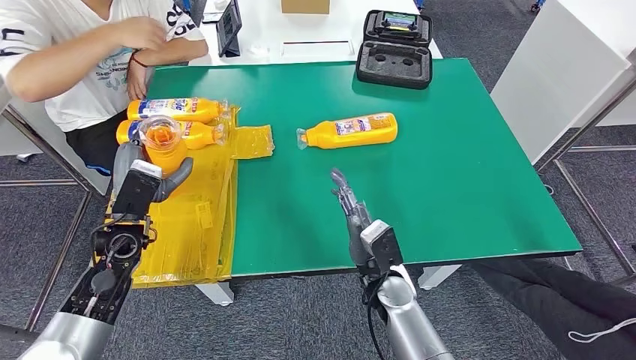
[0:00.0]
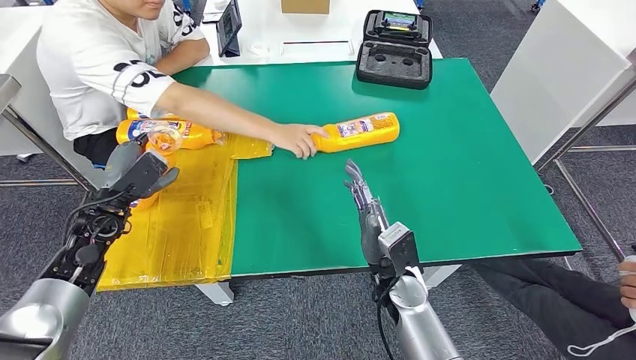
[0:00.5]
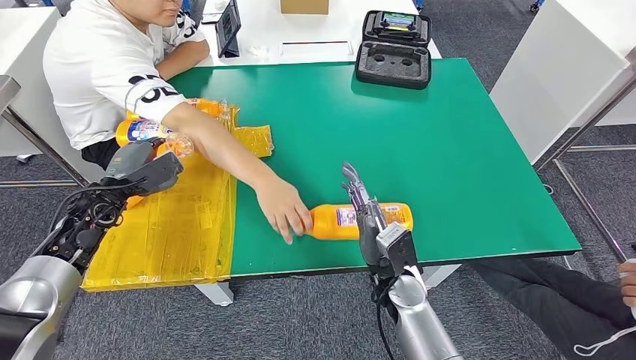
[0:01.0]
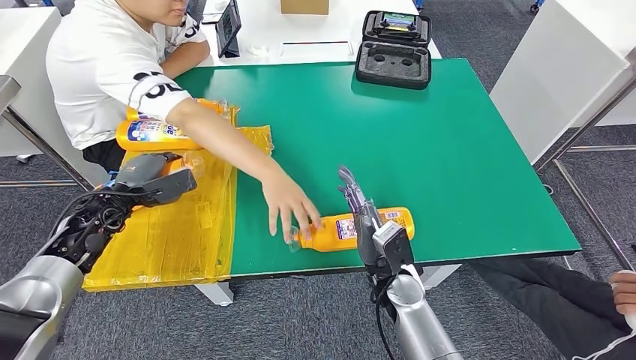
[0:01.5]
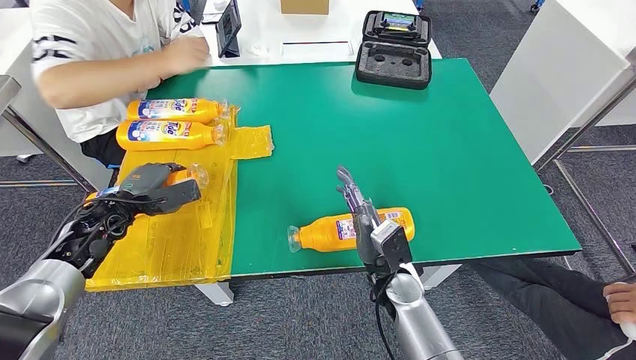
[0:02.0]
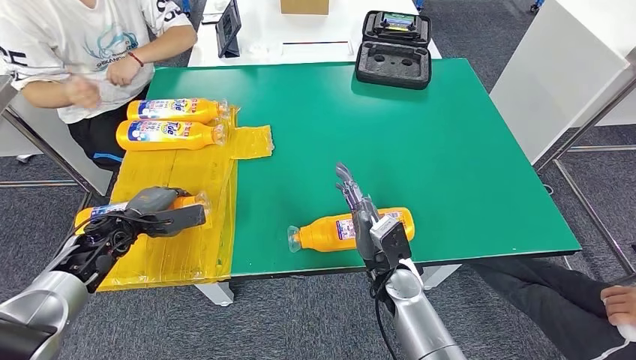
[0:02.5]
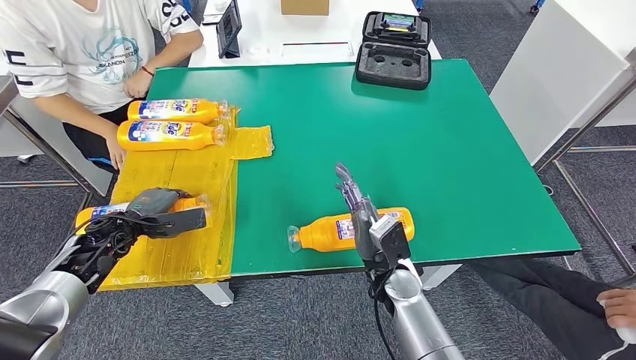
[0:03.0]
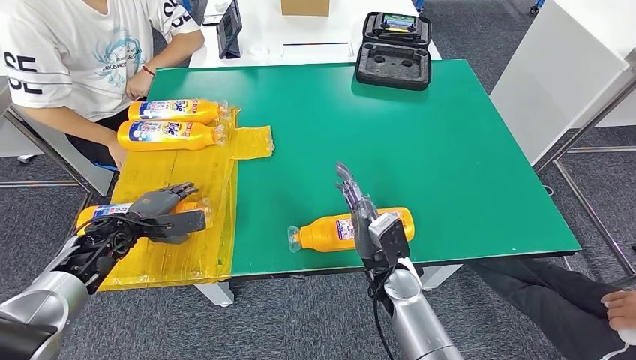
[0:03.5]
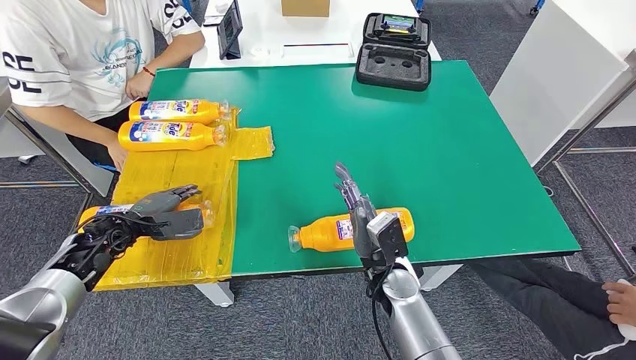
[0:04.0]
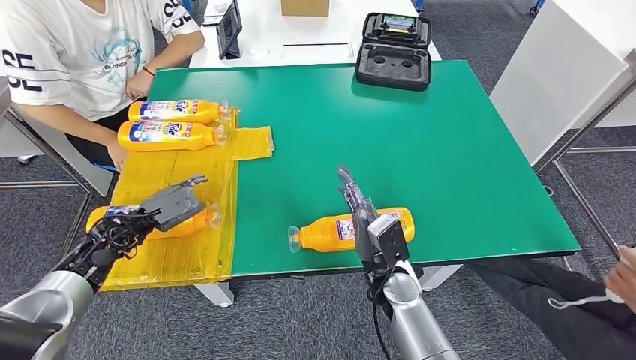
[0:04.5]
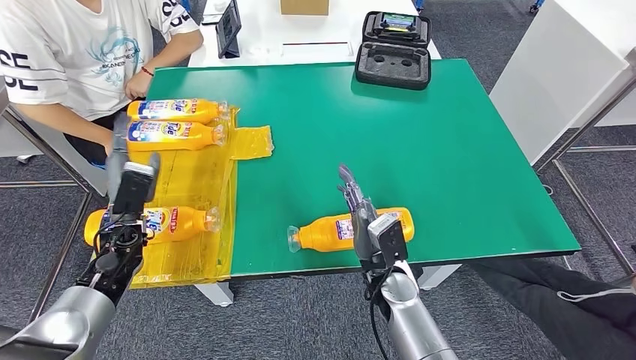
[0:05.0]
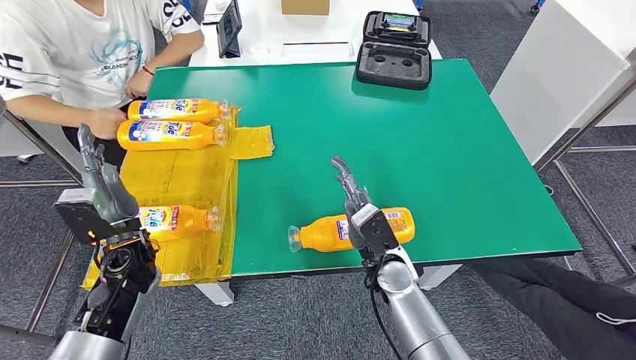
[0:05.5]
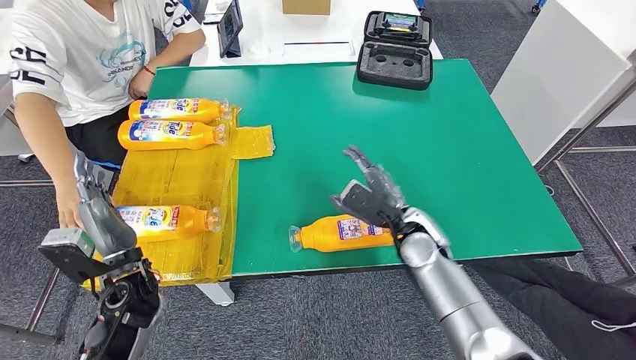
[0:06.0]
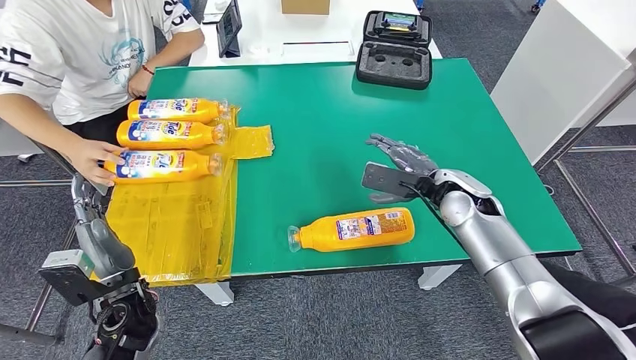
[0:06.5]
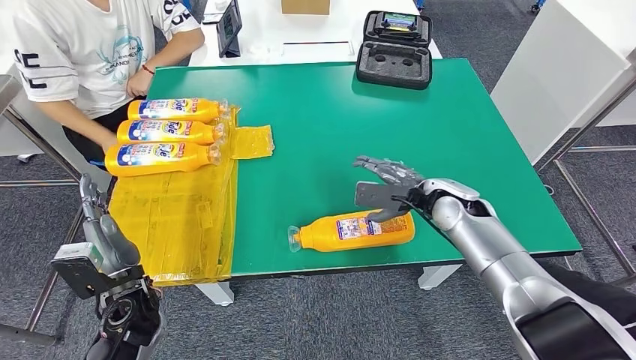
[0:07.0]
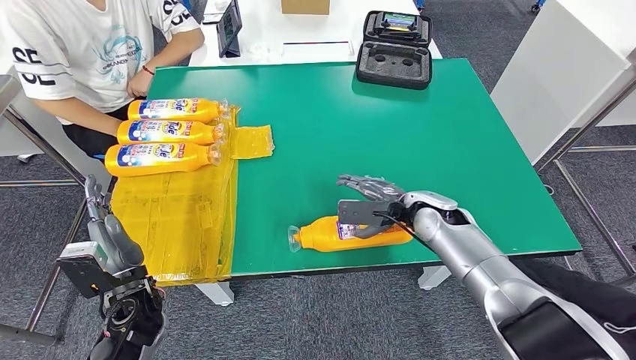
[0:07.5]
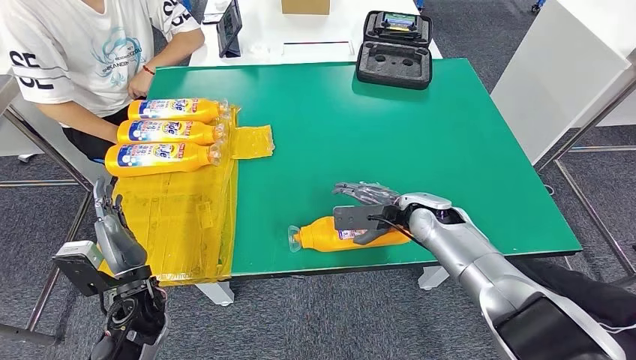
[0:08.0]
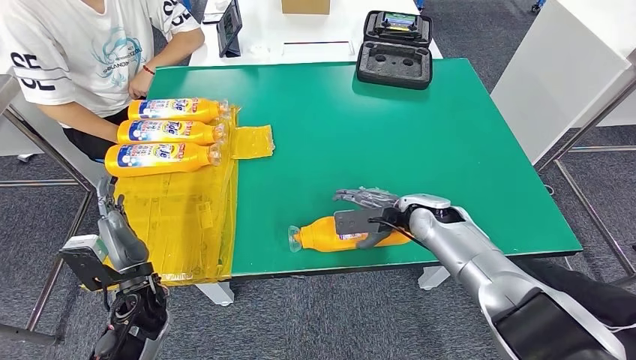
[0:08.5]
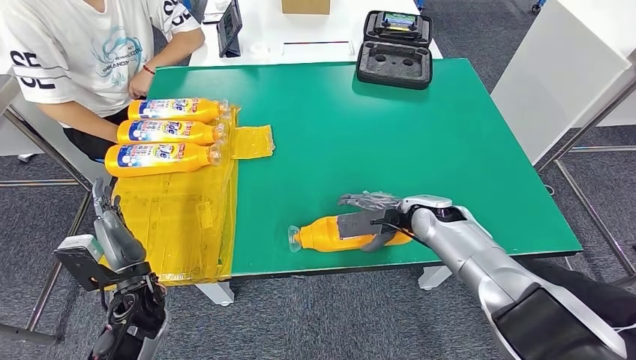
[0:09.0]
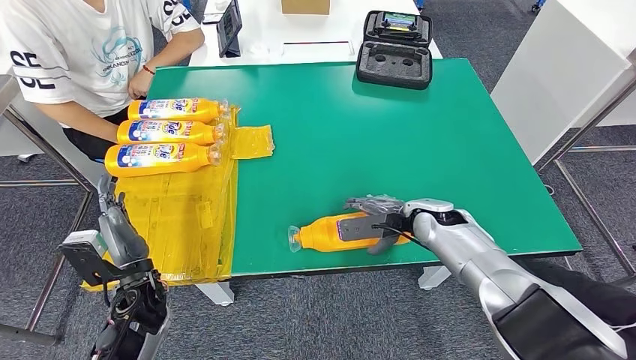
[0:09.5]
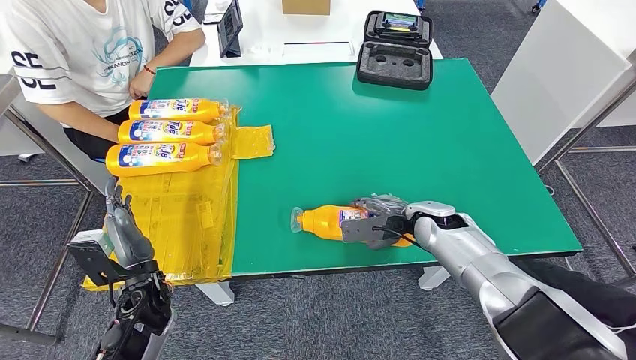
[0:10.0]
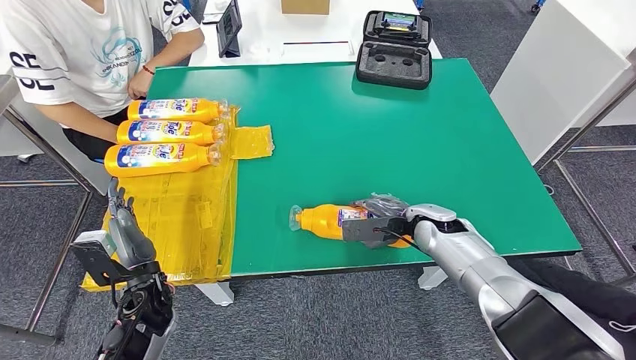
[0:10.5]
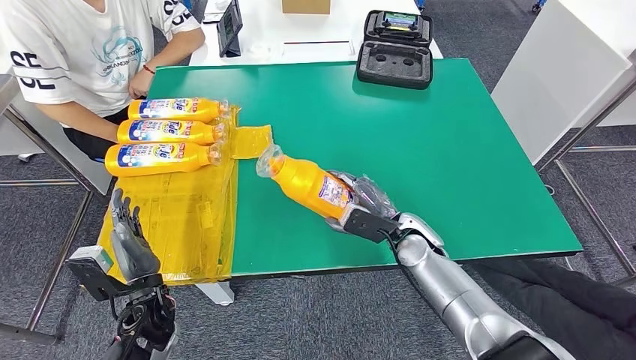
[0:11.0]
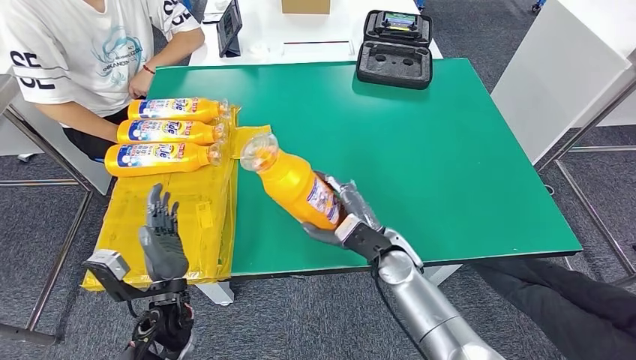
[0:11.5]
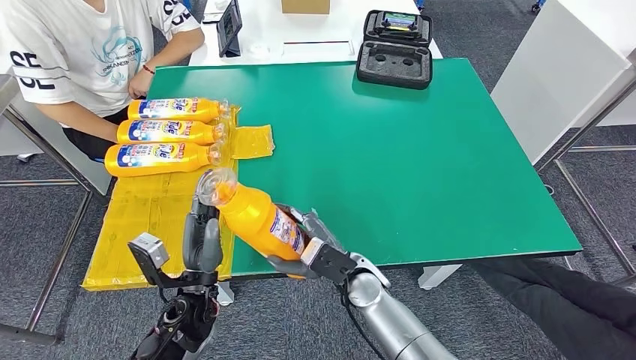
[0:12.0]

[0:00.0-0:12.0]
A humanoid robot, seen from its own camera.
Step, 0:00.0 to 0:04.5: Flip the fast-moving consumer goods bottle to the front side.
0:02.0 to 0:04.0: There are only small adjustments of the hands.
0:08.0 to 0:10.0: The hands move only a little.
0:10.0 to 0:12.0: The left hand heads to the right, covering roughly 10 cm; the right hand is displaced to the left and backward by some 20 cm.

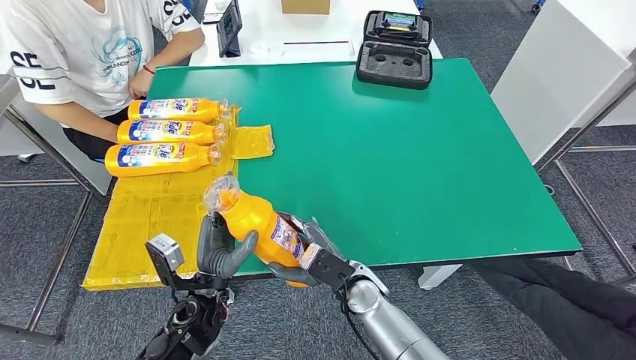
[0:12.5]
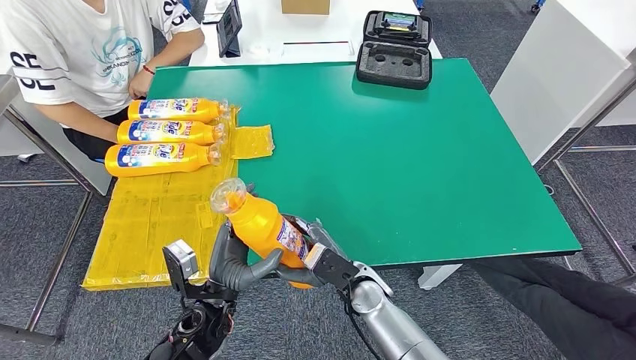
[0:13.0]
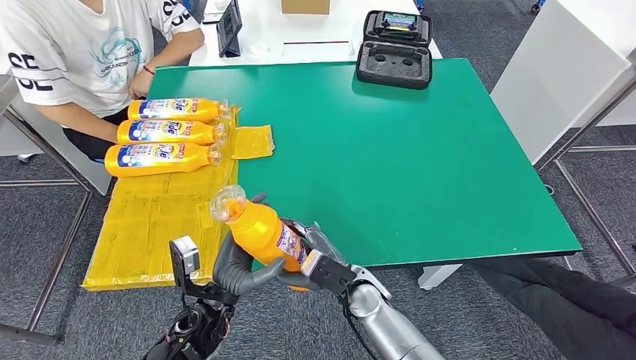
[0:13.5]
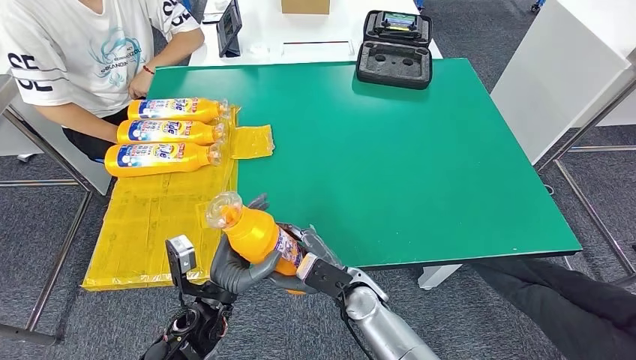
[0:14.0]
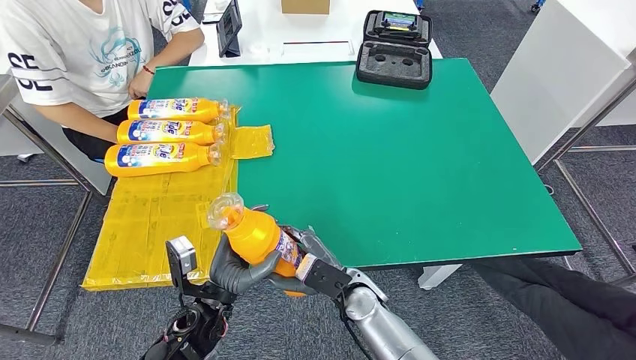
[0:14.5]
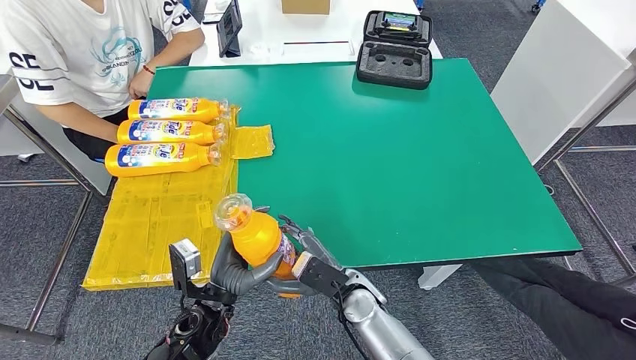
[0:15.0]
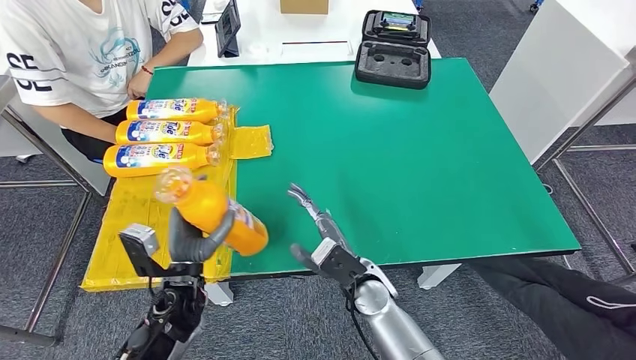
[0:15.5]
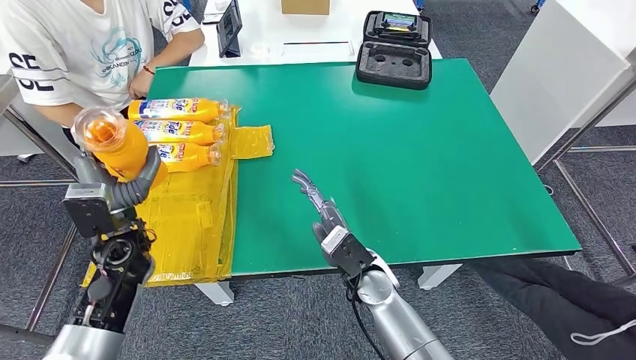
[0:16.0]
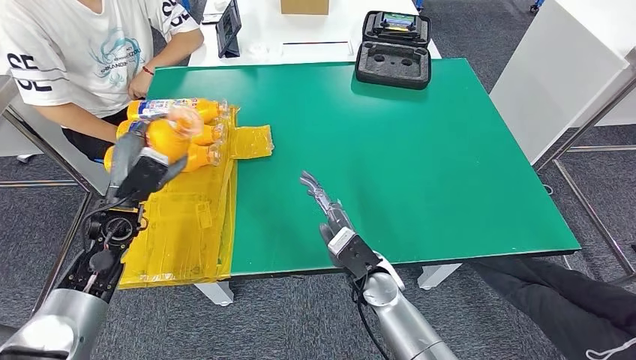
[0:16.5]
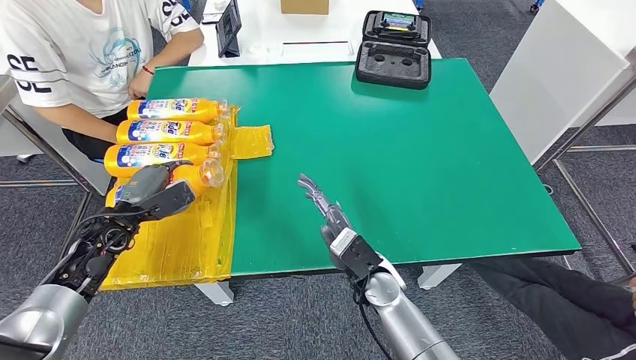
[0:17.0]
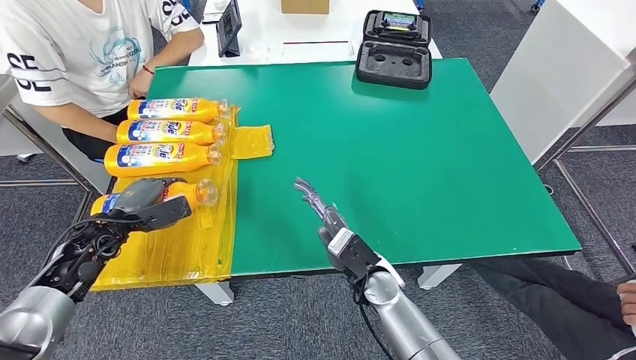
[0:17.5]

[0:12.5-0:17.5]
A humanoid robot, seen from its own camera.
Step, 0:13.0 to 0:17.5: Flip the fast-moving consumer goods bottle to the front side.
0:12.5 to 0:15.0: The hands make only small movements.
0:15.0 to 0:17.5: The left hand goes approximately 25 cm to the left and forward.
